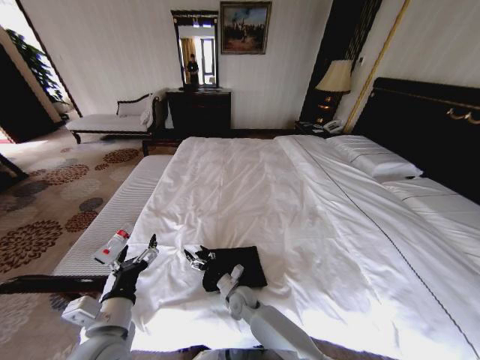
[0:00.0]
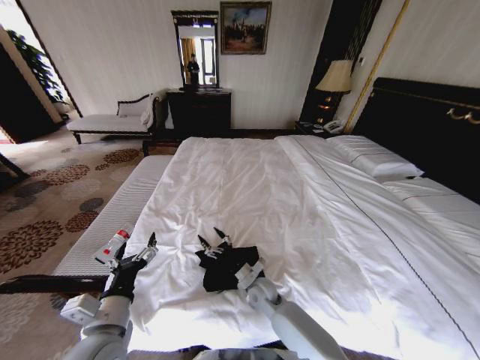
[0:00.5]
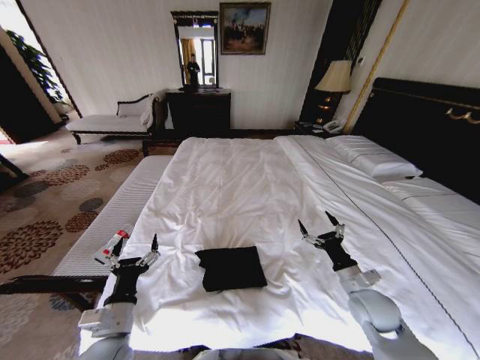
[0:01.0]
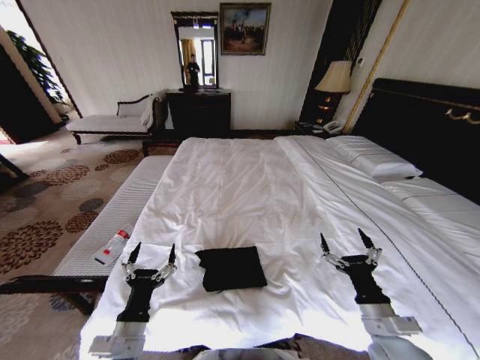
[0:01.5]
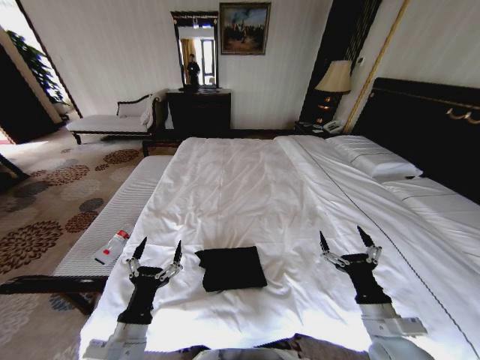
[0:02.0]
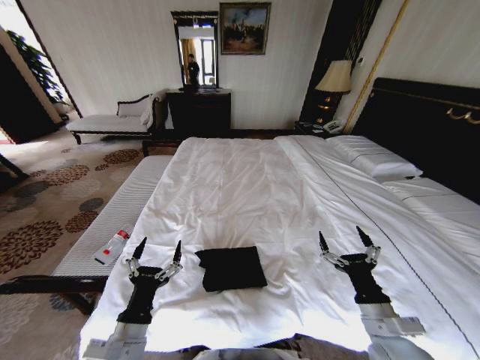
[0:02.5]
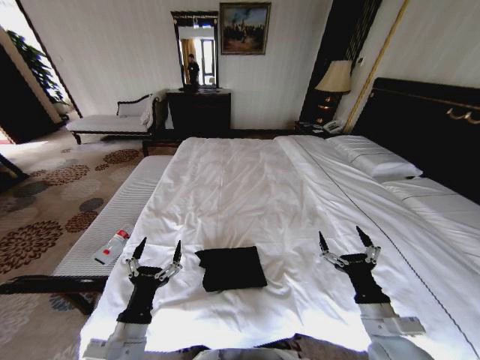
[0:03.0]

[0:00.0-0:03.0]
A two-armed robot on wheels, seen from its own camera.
Task of the whole recording: Fold the clothes on the bed.
0:00.0 to 0:01.5: The right gripper goes some 35 cm to the right, upward and backward. Meanwhile the left gripper moves downward, some 5 cm.
0:01.5 to 0:03.0: There are only small adjustments of the grippers.
